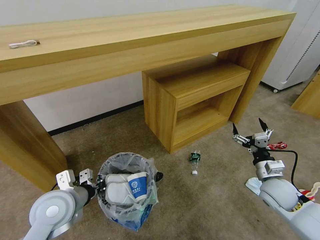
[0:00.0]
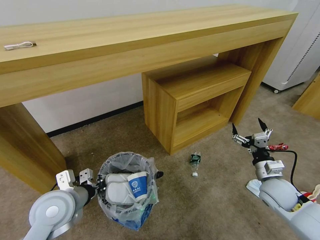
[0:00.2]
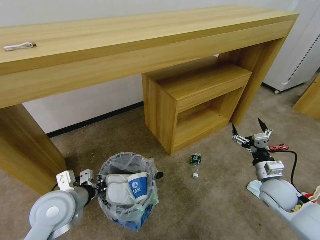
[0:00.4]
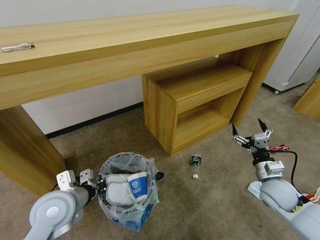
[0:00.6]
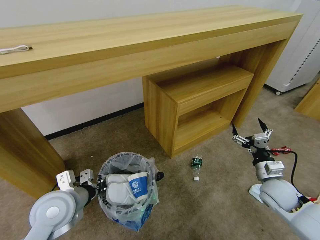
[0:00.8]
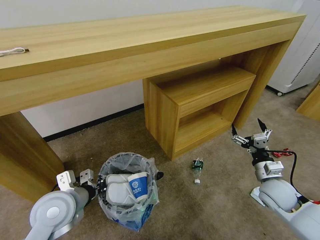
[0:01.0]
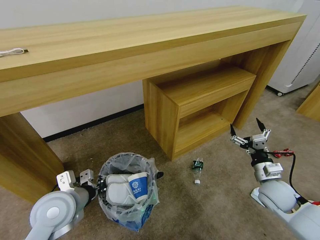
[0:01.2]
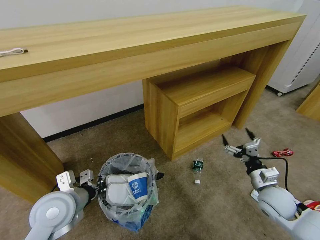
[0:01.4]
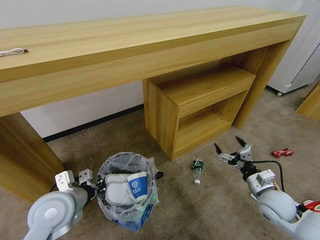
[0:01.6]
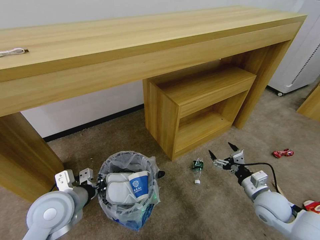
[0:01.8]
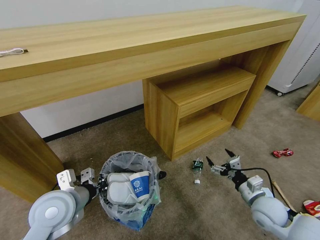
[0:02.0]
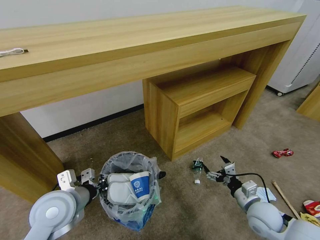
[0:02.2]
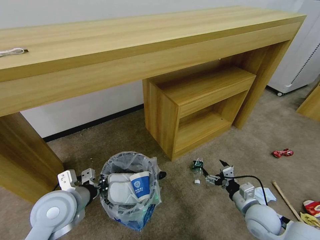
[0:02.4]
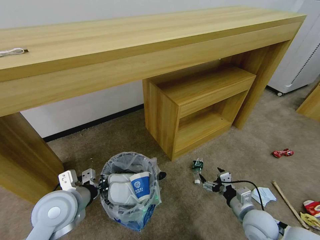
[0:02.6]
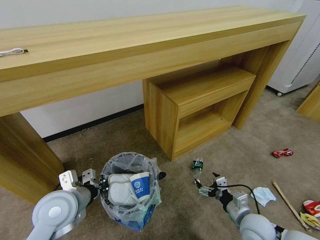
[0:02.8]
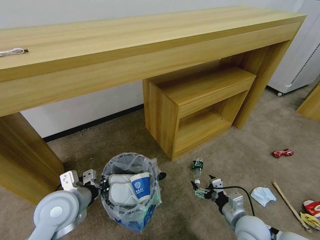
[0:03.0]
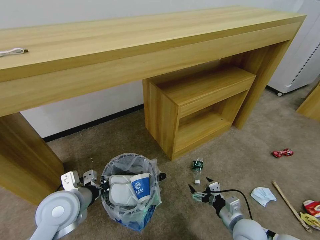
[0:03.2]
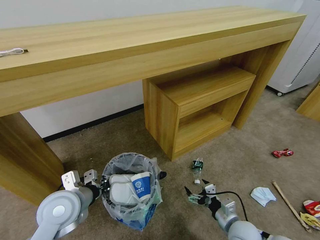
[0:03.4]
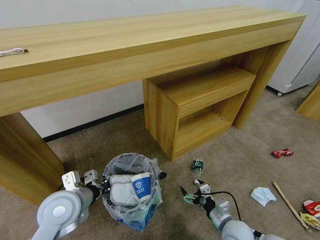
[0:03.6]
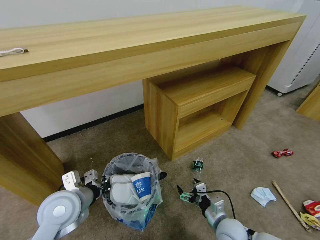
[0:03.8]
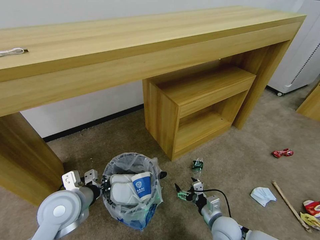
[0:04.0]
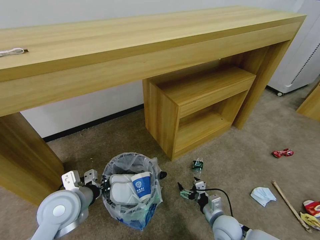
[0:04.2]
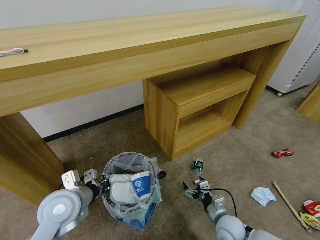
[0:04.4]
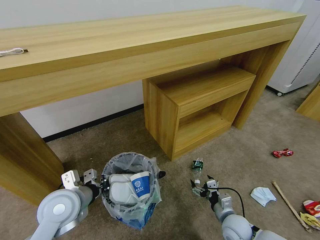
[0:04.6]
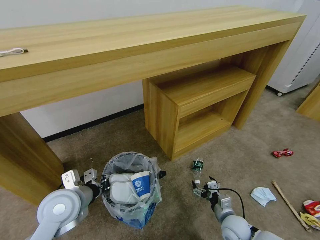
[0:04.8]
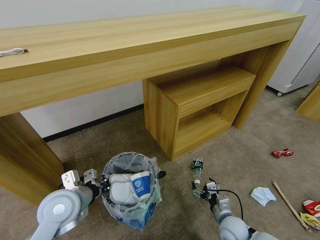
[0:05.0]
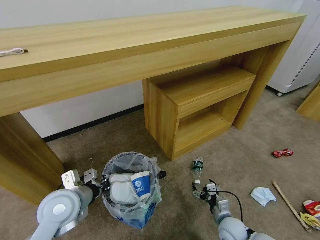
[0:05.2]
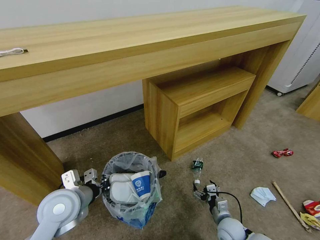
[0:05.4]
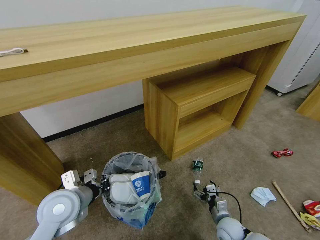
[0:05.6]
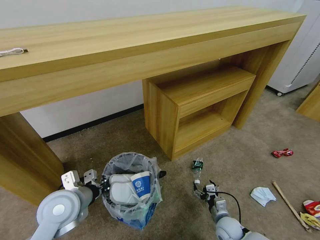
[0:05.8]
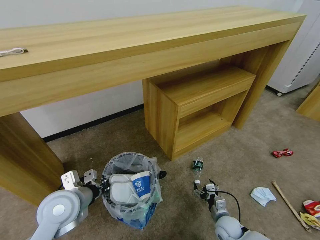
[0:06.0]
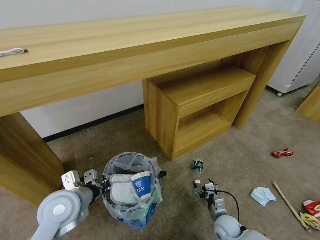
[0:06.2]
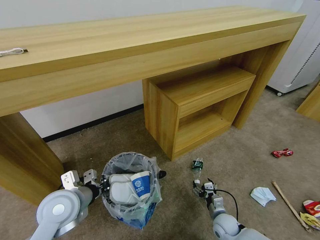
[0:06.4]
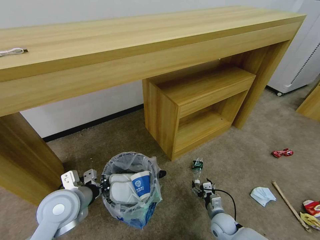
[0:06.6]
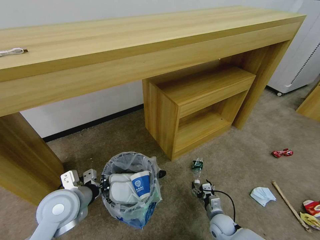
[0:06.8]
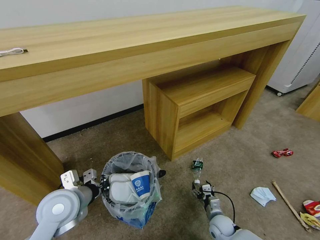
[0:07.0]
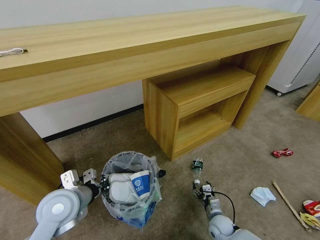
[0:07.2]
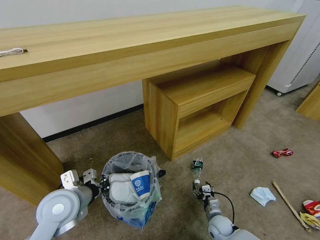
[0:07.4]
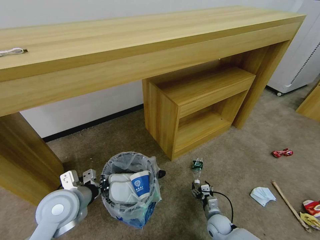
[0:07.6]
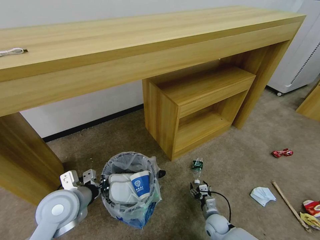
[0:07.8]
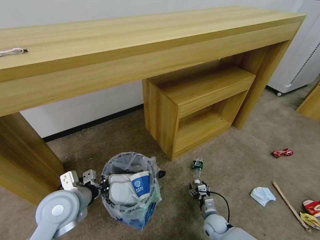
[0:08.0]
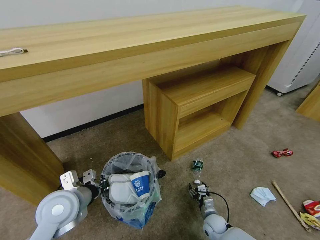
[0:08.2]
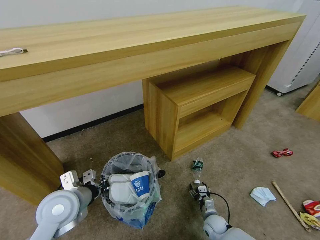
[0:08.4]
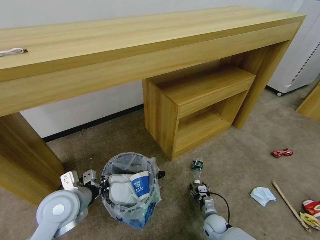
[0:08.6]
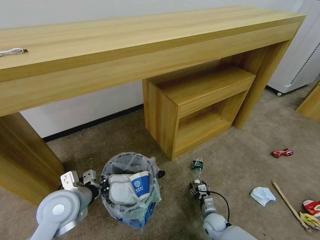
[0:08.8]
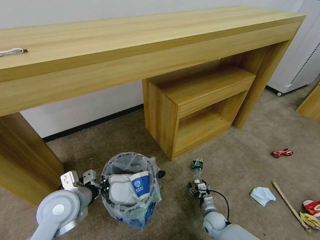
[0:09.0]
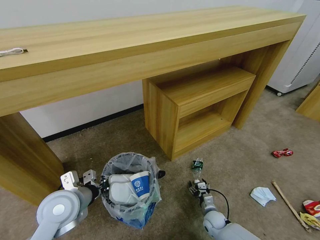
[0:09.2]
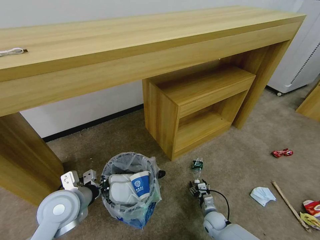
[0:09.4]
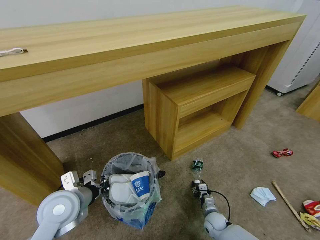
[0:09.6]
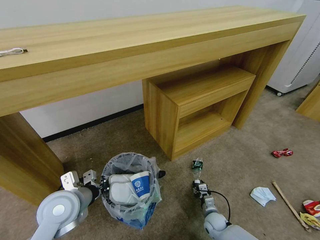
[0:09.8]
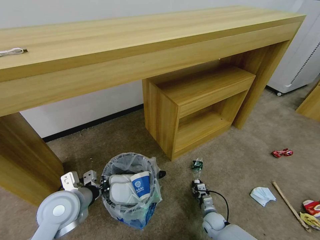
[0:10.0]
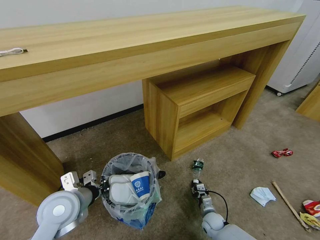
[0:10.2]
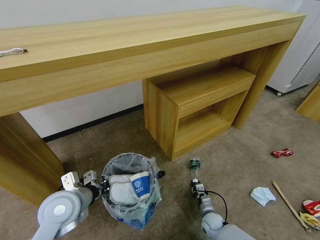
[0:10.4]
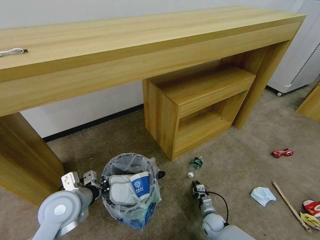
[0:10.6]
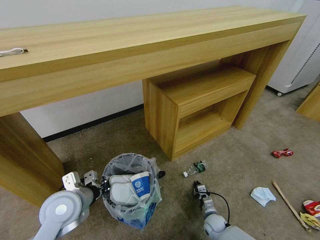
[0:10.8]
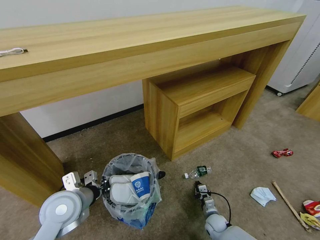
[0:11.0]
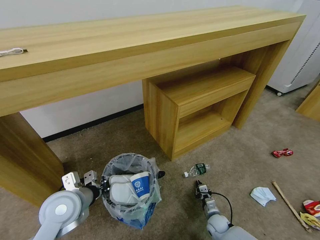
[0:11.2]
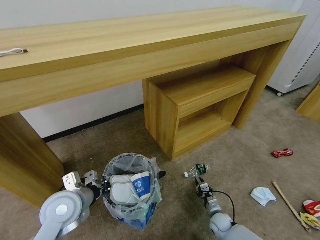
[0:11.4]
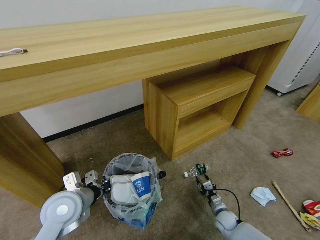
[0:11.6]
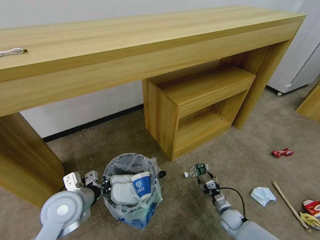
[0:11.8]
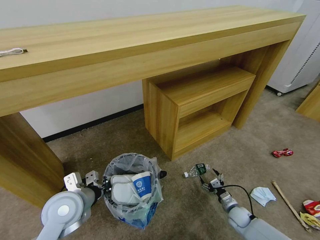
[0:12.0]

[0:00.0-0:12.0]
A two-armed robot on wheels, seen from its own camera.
Task of the whole recording: Pick up the trash bin and place the garbage on the floor into it.
0:01.6 to 0:03.0: The right gripper is displaced to the left, backward and downward by some 10 cm.
0:03.0 to 0:04.4: The right gripper heads downward, covering approximately 5 cm.
0:04.4 to 0:06.0: The right gripper moves downward, approximately 5 cm.
0:06.0 to 0:07.6: The right gripper changes place by about 5 cm.
0:07.6 to 0:09.0: The grippers move only a little.
0:09.0 to 0:10.4: The right gripper closes.
0:10.4 to 0:12.0: The right gripper is displaced to the right by roughly 10 cm, and opens.

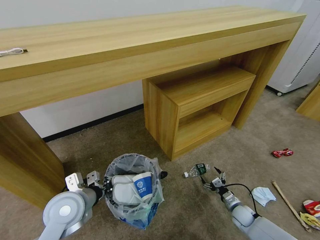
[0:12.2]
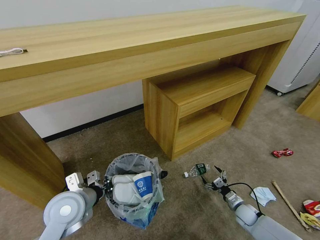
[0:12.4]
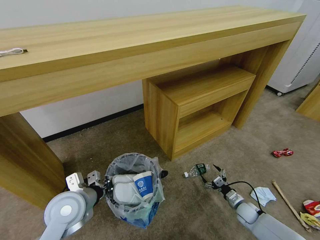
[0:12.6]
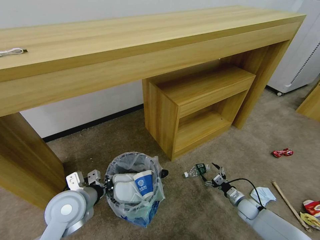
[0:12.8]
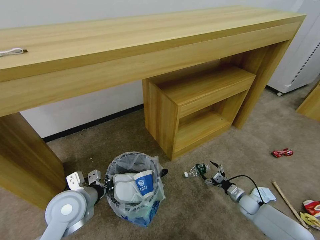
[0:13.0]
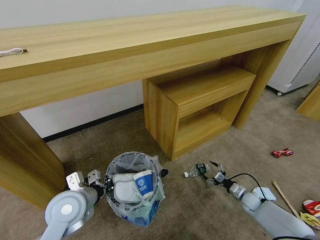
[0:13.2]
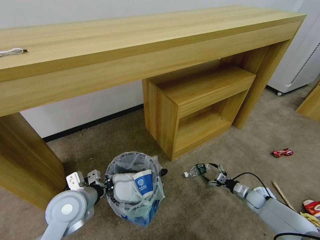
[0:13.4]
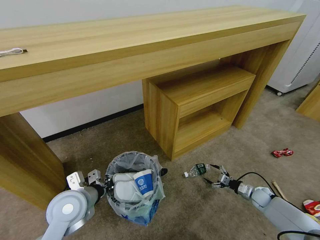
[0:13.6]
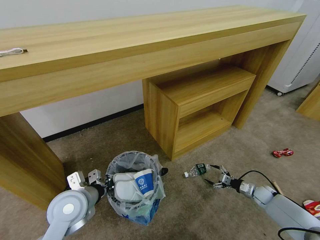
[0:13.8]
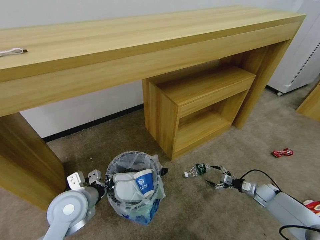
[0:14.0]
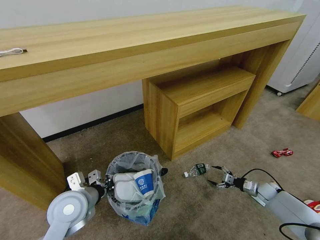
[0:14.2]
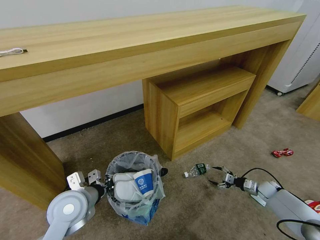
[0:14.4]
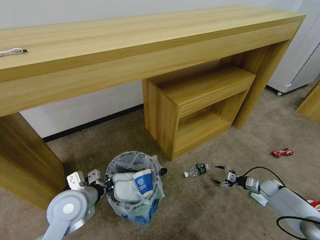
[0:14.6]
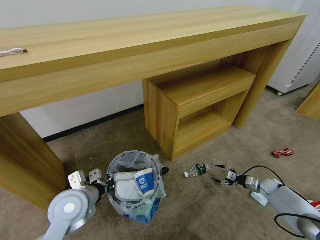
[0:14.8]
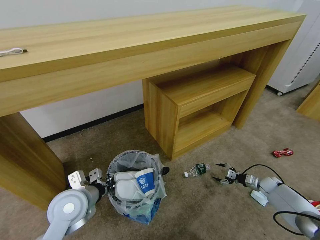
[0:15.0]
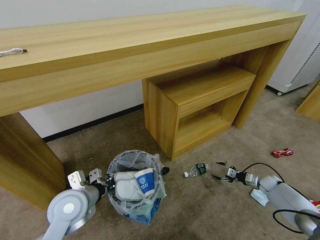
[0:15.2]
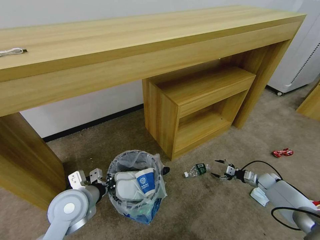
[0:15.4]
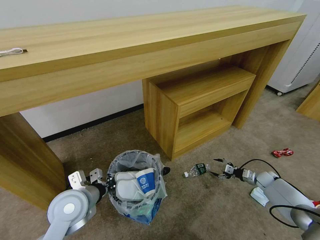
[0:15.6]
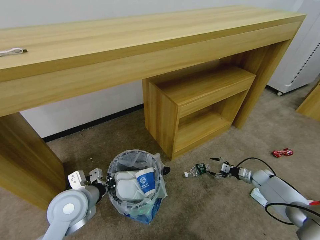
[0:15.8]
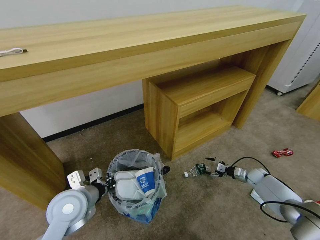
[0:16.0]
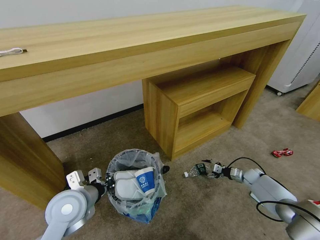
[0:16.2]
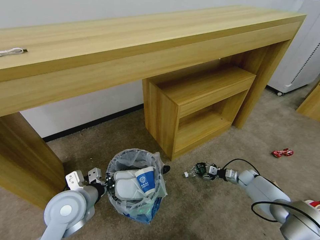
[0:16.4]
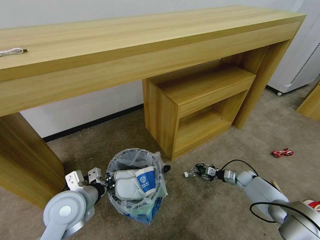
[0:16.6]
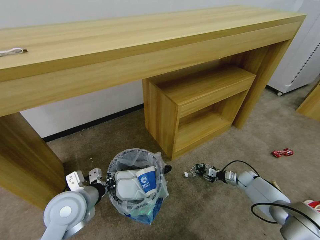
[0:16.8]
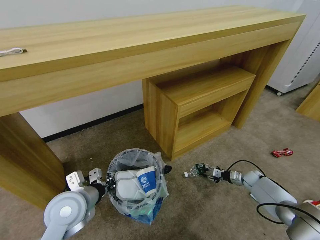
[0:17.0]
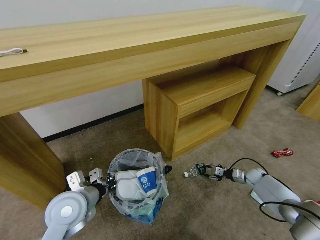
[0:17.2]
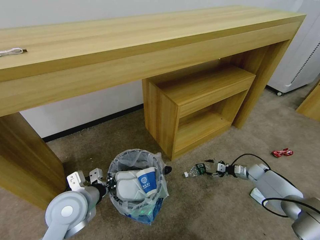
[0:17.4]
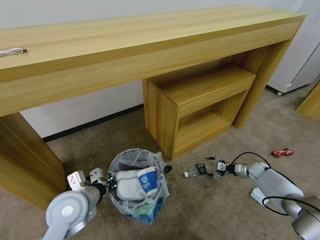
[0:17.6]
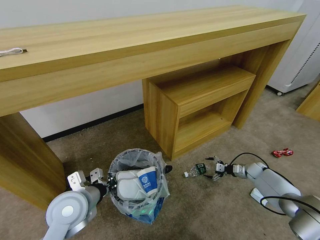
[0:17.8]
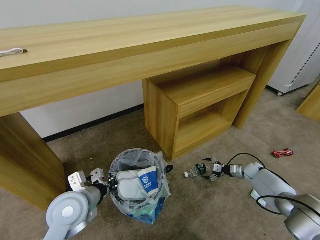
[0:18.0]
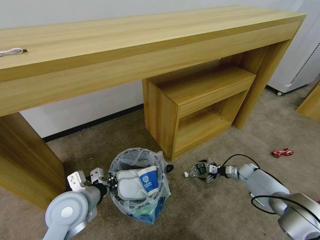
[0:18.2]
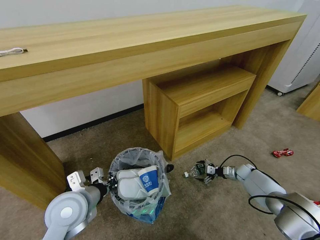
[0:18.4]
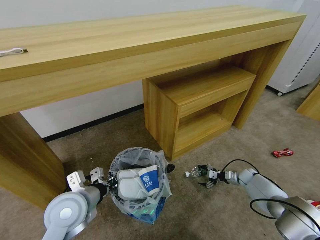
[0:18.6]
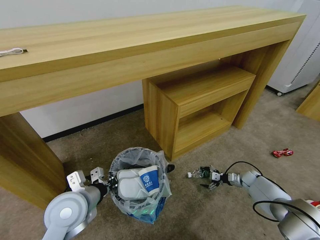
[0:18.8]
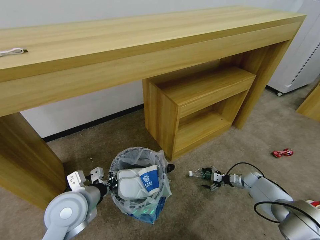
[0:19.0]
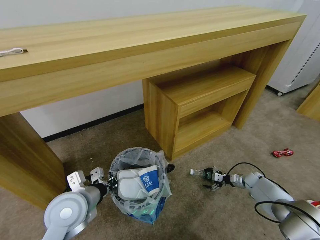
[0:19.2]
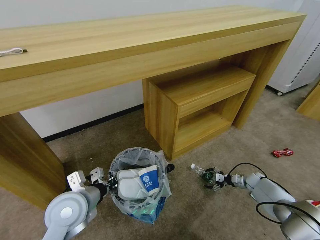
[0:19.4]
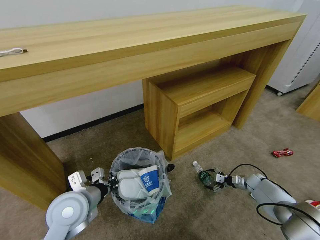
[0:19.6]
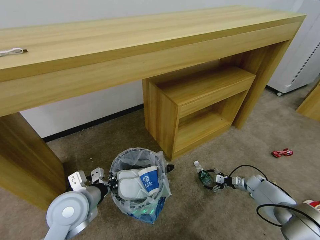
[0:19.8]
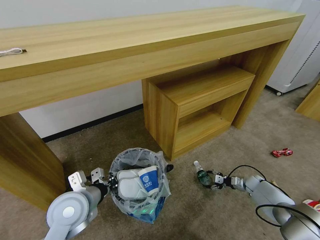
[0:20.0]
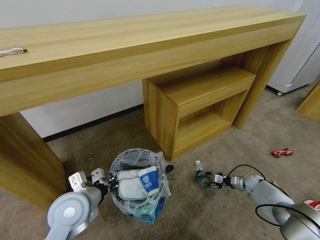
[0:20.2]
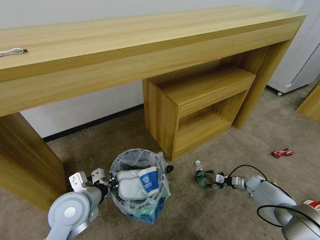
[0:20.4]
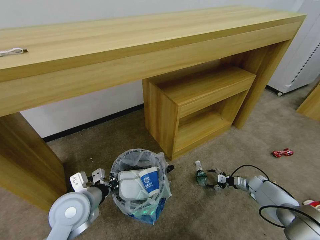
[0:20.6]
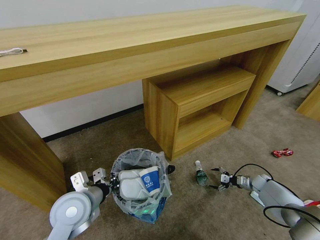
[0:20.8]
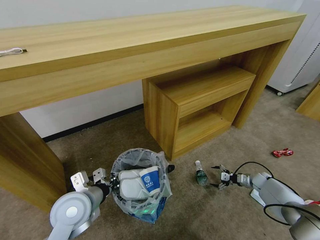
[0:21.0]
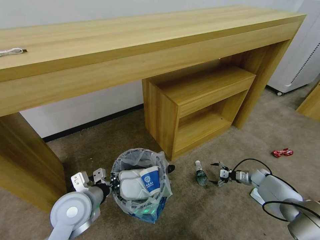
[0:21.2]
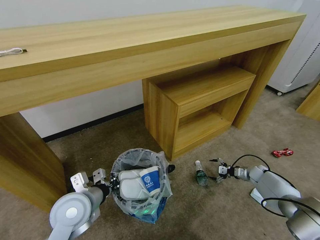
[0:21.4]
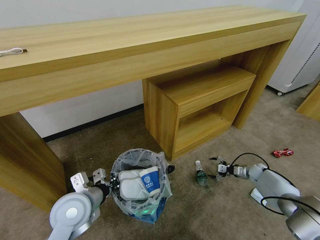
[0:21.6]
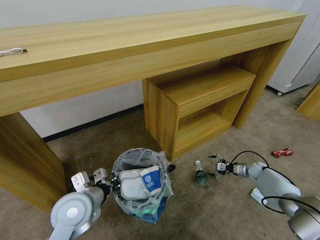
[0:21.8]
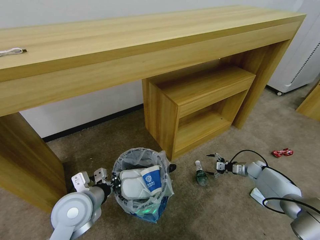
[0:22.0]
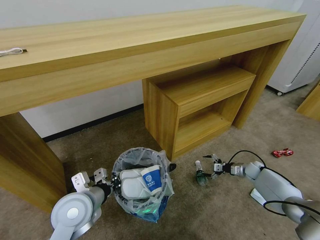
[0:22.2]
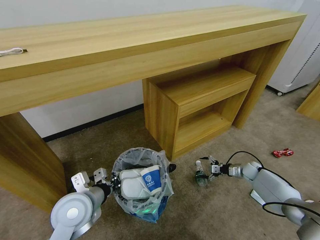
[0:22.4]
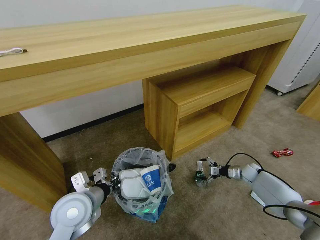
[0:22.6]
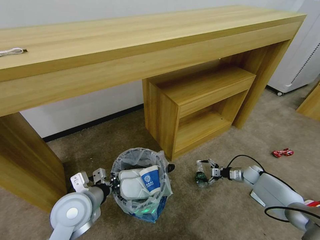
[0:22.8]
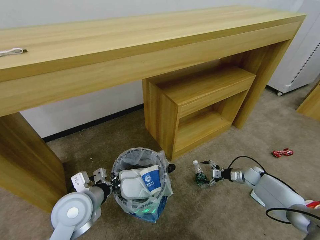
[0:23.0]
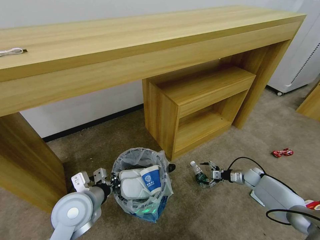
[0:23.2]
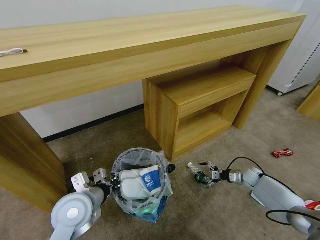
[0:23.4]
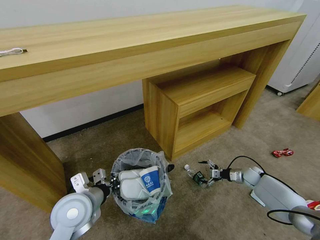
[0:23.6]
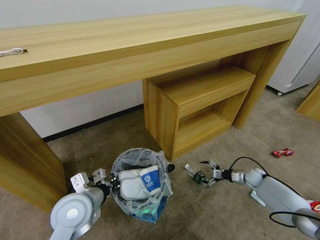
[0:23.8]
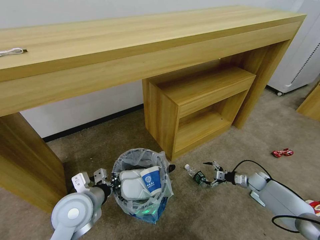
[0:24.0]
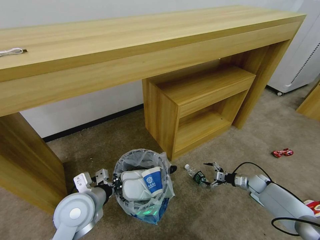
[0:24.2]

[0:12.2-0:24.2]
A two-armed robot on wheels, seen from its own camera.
Task of the whole recording: Pick up the trash bin and place the garbage on the floor into it.
0:12.2 to 0:13.8: The right gripper heads to the right and forward, covering roughly 15 cm.
0:13.8 to 0:15.2: The right gripper shifts by approximately 5 cm.
0:15.2 to 0:16.6: The right gripper heads to the left, covering about 10 cm, and closes its fingers.
0:16.6 to 0:18.2: The right gripper opens its fingers.
0:18.2 to 0:19.8: The right gripper shifts by some 5 cm.
0:19.8 to 0:21.2: The right gripper closes and opens again.
0:21.2 to 0:22.6: The right gripper changes place by about 5 cm.
0:22.6 to 0:24.2: The right gripper shifts by approximately 5 cm.
